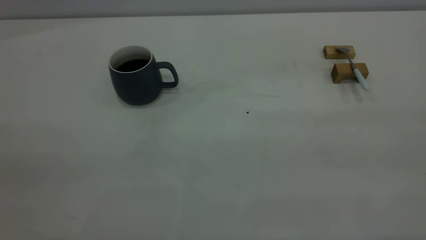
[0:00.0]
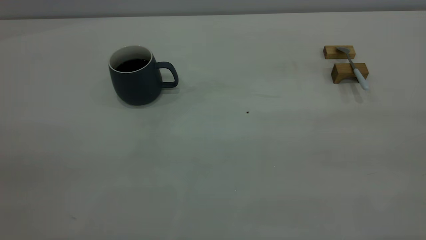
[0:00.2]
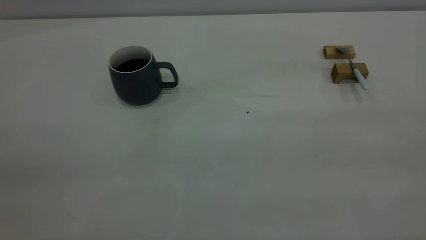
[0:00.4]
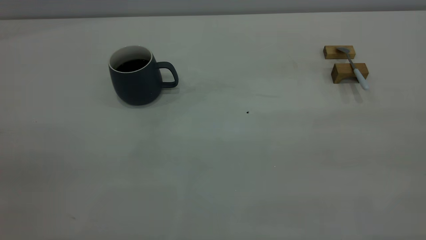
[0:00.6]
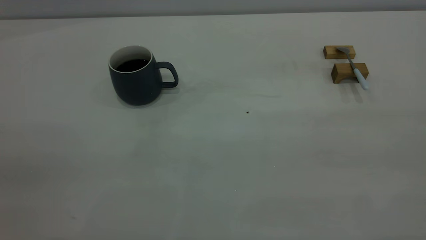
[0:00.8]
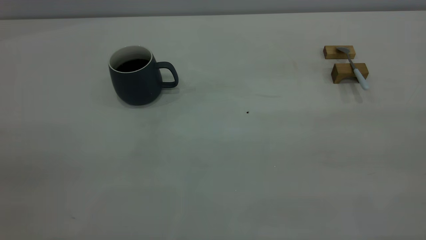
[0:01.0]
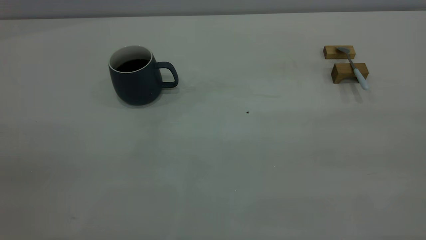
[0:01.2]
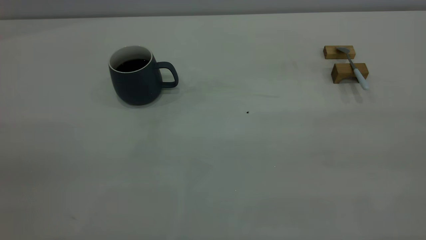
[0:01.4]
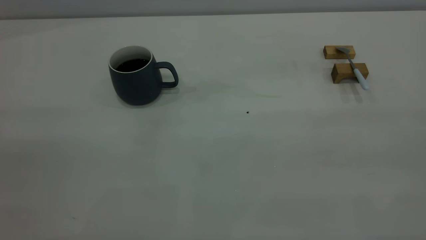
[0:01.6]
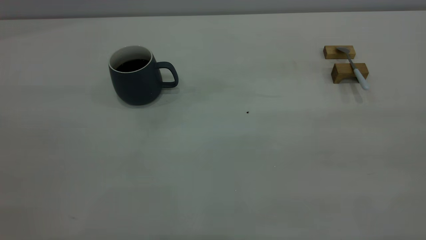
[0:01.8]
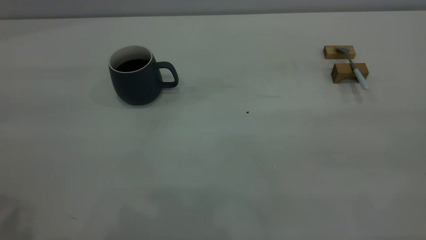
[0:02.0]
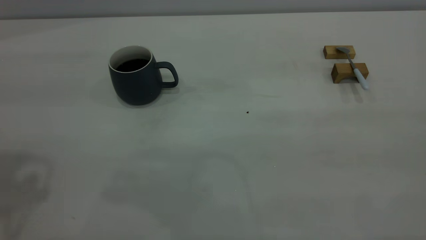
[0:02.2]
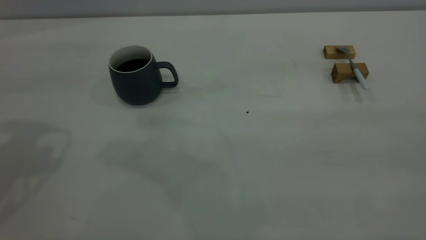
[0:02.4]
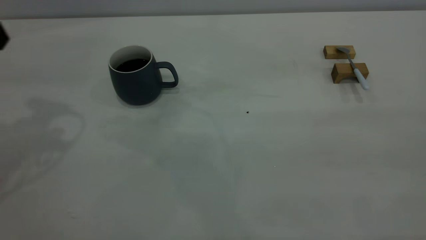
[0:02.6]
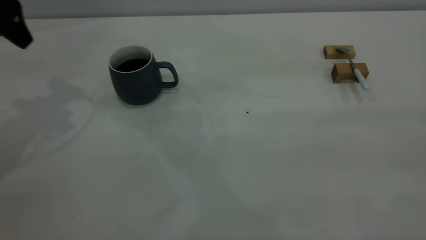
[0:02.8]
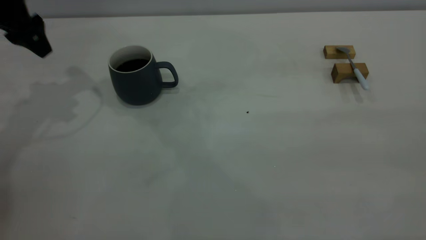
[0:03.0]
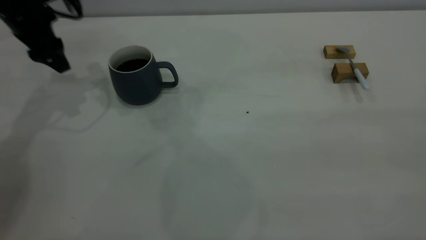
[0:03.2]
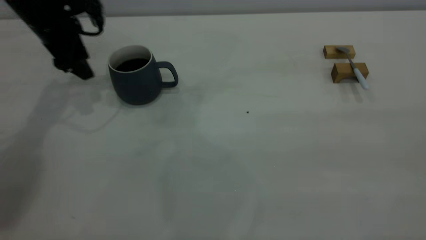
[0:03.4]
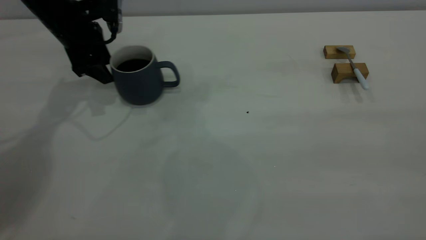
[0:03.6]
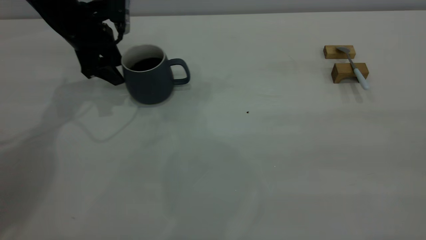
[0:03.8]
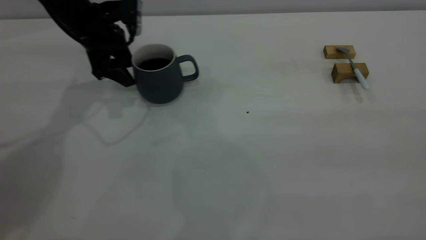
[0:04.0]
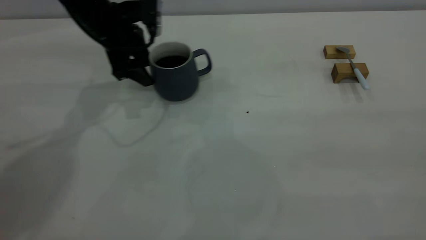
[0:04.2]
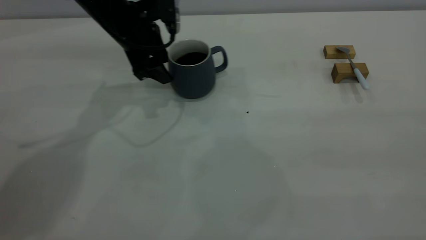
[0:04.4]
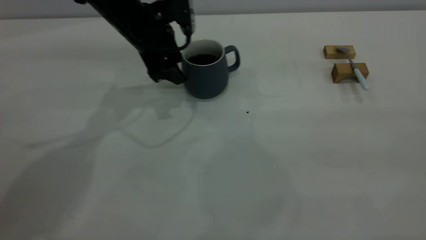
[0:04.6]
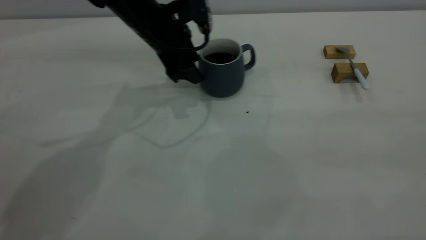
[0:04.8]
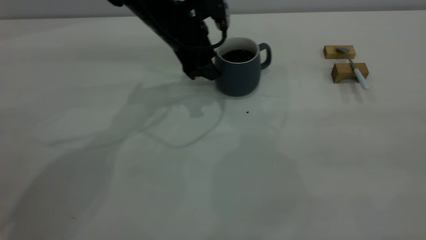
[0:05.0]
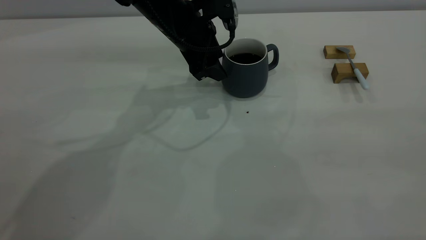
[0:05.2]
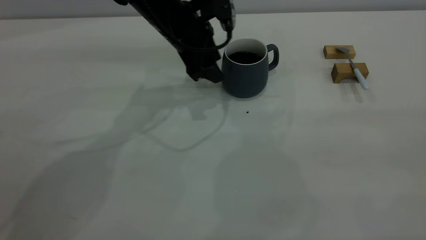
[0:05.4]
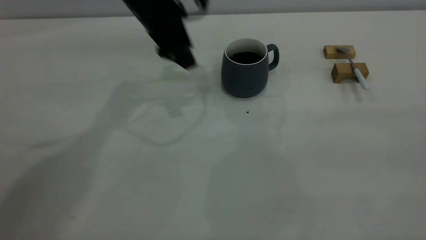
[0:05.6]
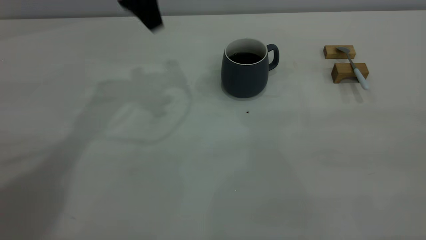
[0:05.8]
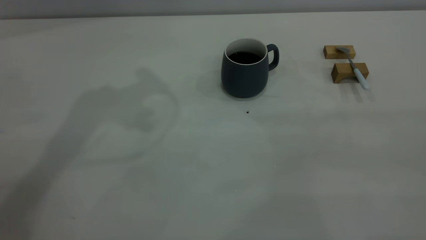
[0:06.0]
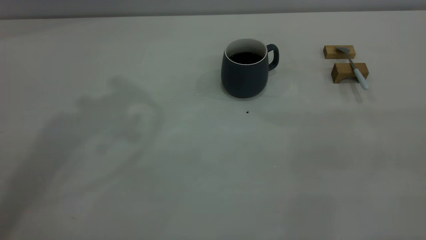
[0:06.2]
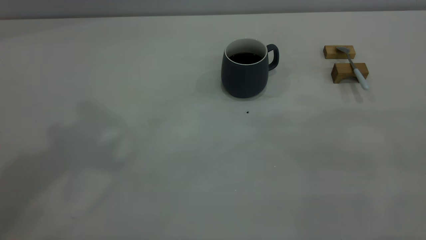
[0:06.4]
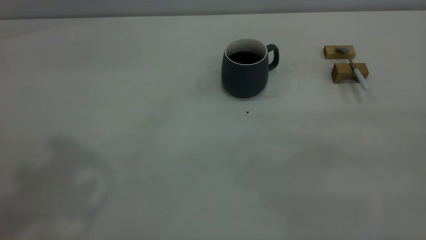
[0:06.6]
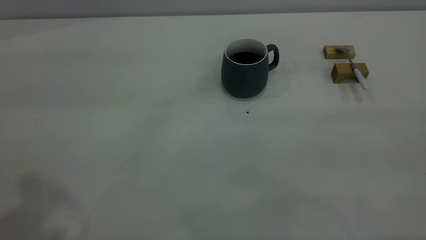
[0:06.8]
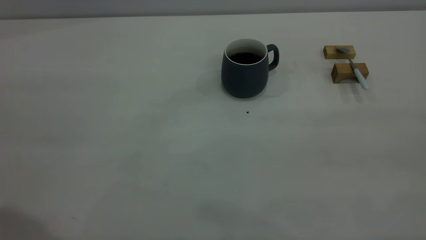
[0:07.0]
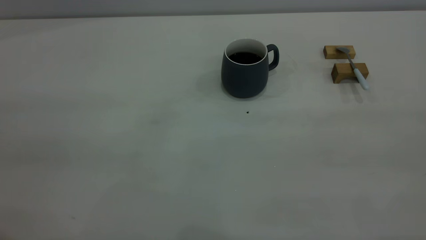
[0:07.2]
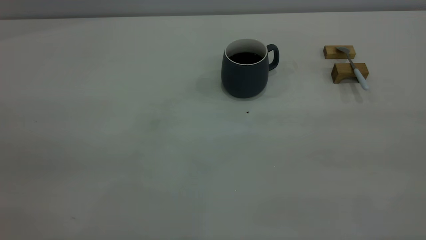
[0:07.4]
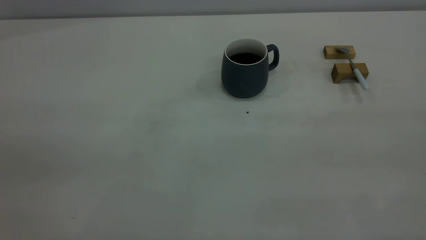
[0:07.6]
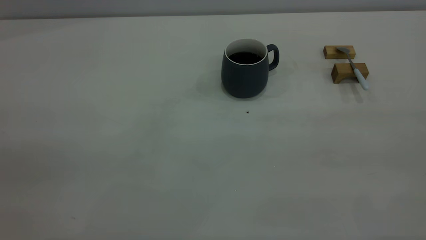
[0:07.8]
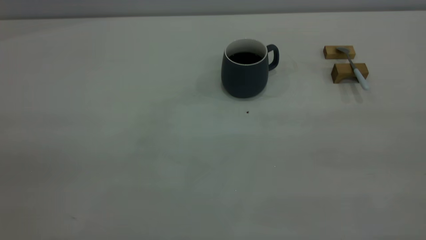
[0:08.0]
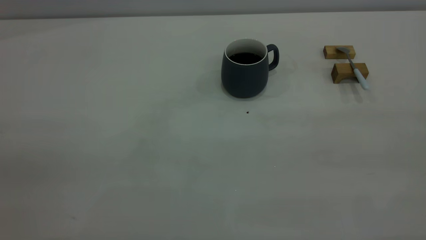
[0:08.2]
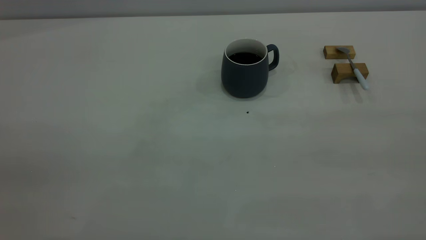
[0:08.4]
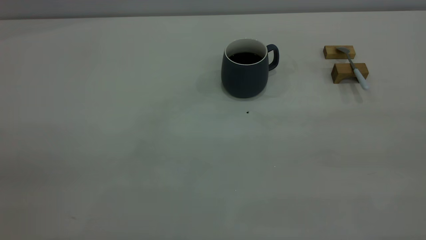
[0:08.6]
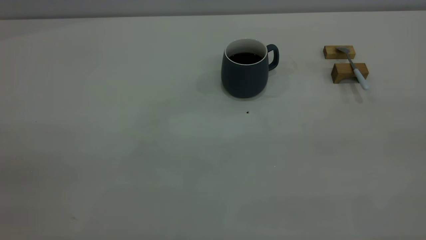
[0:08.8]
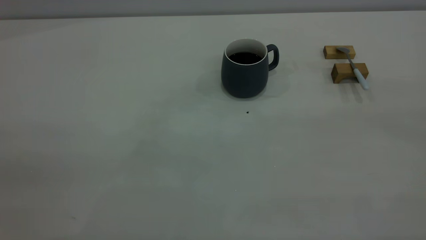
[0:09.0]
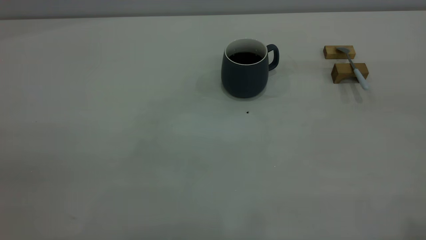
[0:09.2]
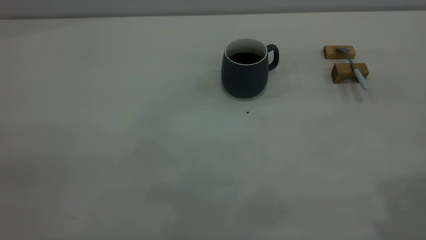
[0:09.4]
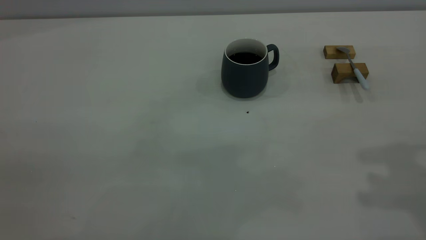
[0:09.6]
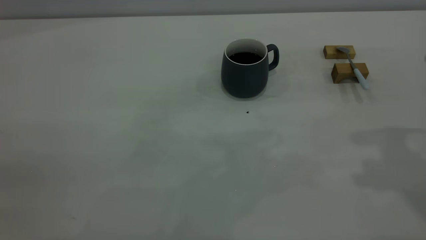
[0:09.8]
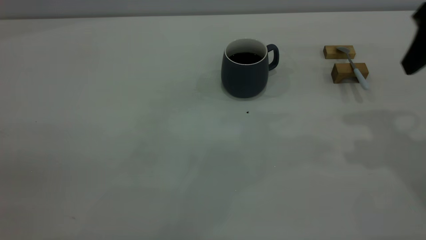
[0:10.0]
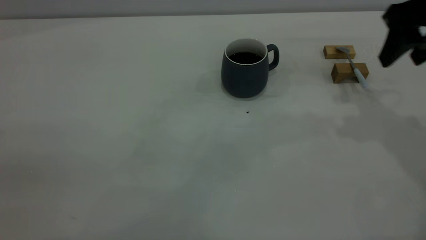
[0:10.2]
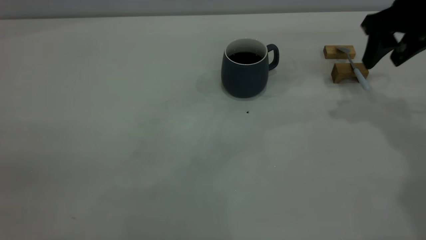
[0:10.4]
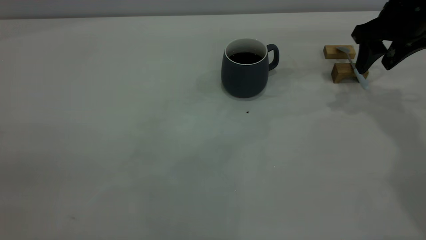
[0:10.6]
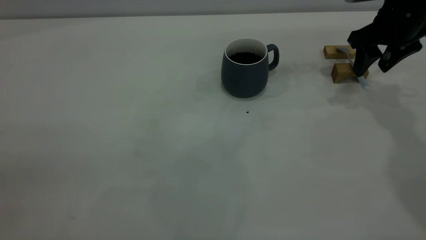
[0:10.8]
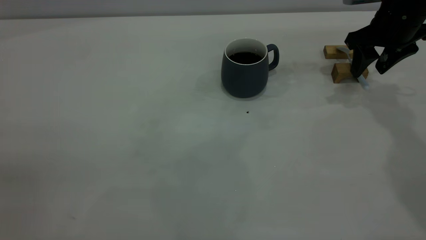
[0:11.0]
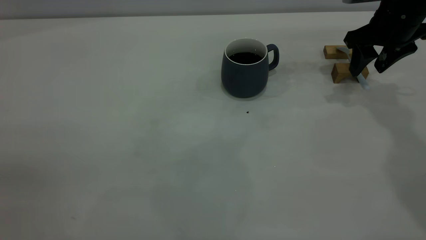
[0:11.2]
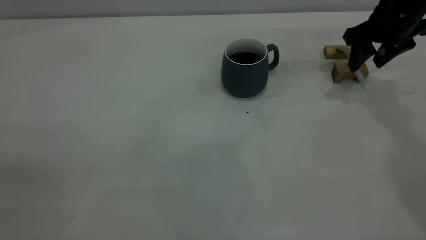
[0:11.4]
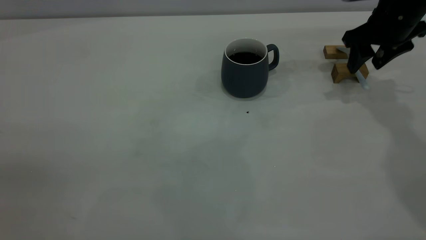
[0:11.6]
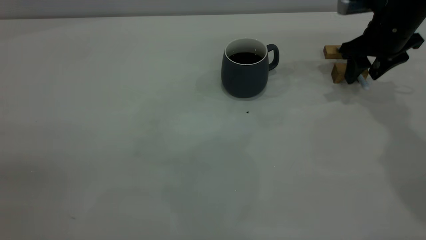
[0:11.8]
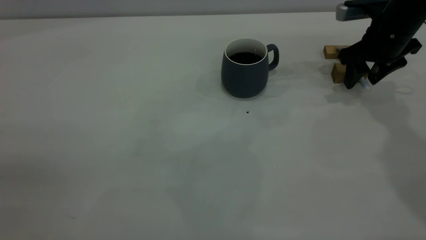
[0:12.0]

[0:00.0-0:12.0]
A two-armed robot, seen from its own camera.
Step, 0:00.0 to 0:05.4: Move the cup with coffee to the center of view.
0:01.6 to 0:03.0: The left gripper moves forward and downward, roughly 40 cm.
0:03.0 to 0:04.4: The left gripper travels to the right and downward by roughly 20 cm.
0:04.4 to 0:06.0: The left gripper shifts about 25 cm upward.
0:09.0 to 0:10.4: The right gripper heads forward and downward, covering roughly 40 cm.
0:10.4 to 0:12.0: The right gripper travels downward by some 10 cm.

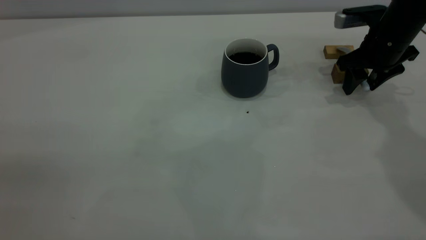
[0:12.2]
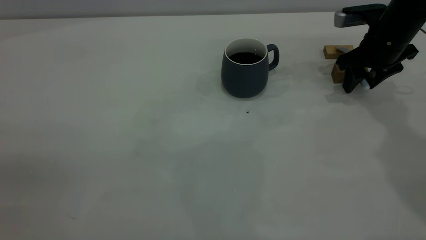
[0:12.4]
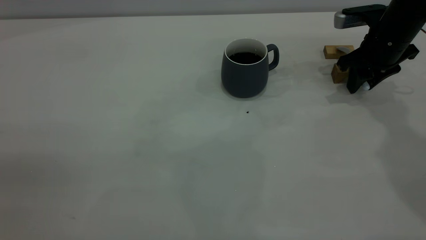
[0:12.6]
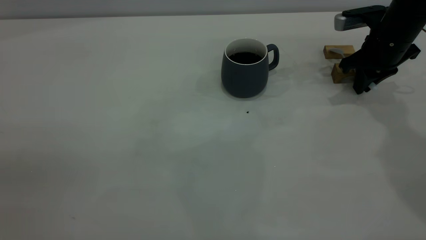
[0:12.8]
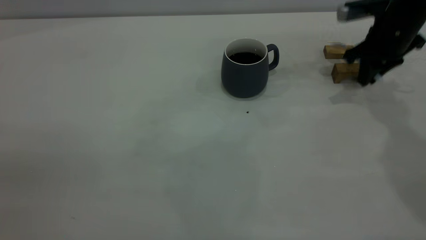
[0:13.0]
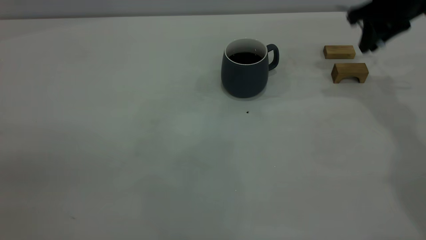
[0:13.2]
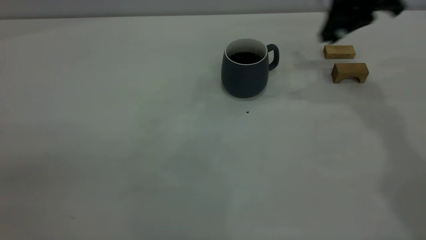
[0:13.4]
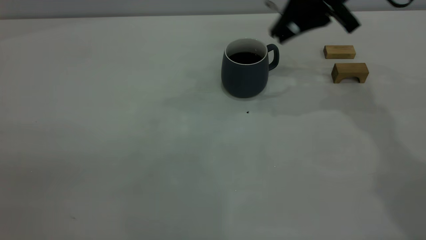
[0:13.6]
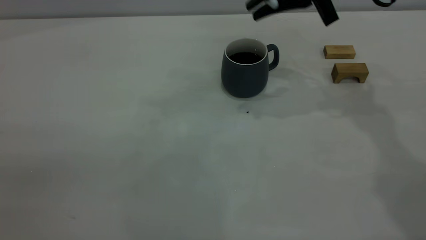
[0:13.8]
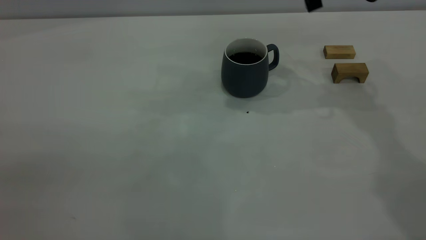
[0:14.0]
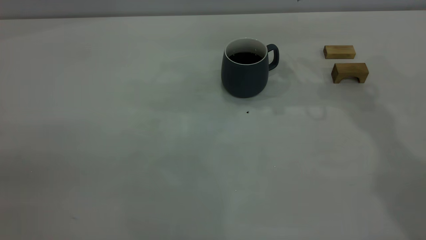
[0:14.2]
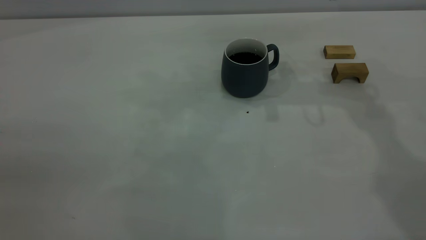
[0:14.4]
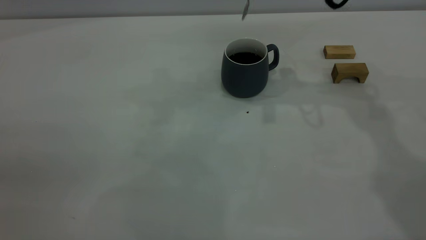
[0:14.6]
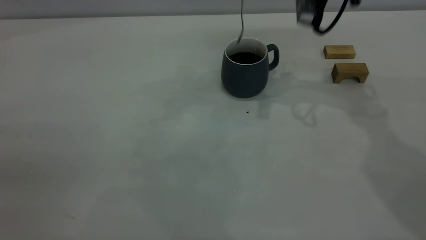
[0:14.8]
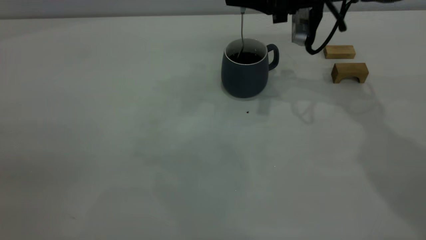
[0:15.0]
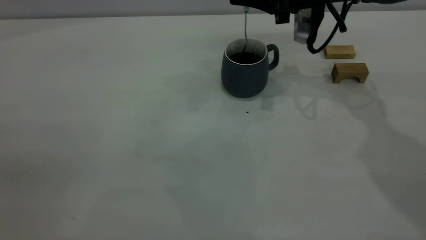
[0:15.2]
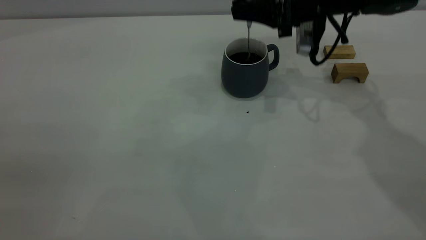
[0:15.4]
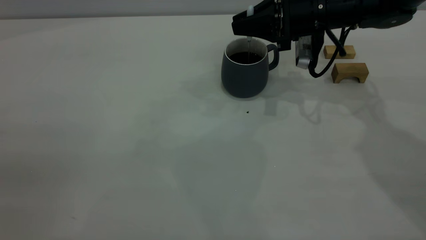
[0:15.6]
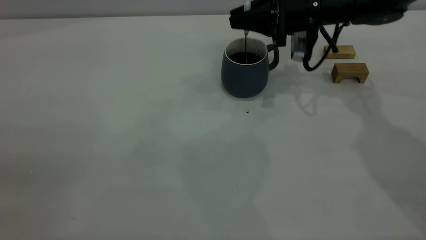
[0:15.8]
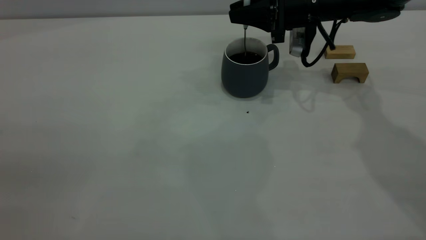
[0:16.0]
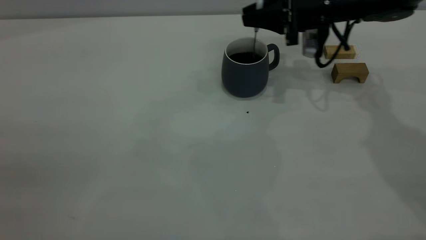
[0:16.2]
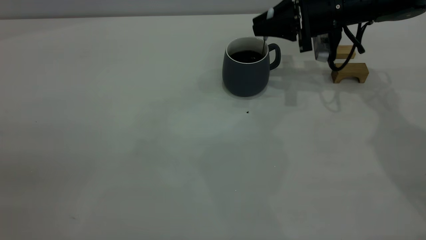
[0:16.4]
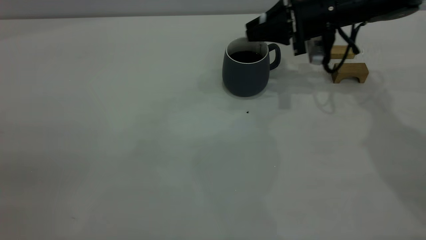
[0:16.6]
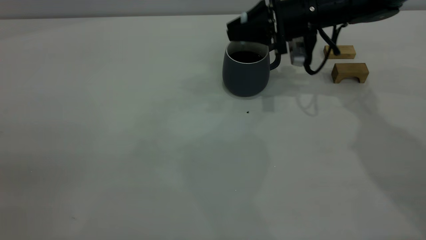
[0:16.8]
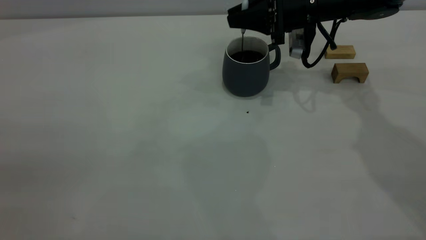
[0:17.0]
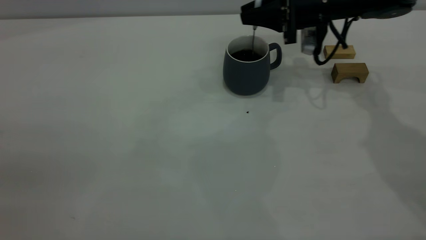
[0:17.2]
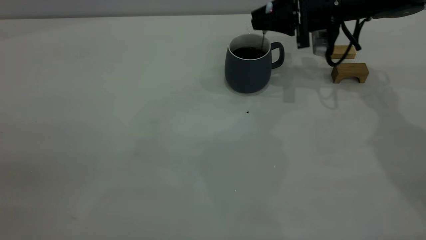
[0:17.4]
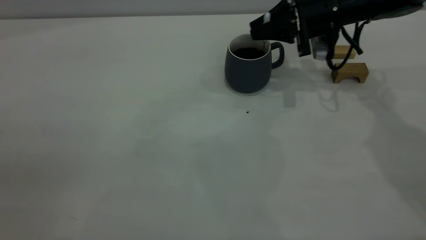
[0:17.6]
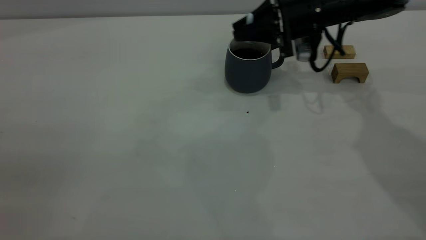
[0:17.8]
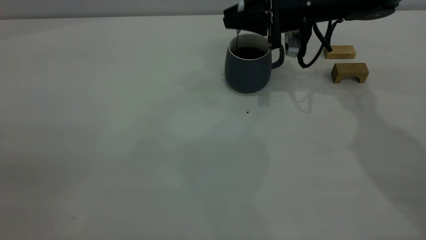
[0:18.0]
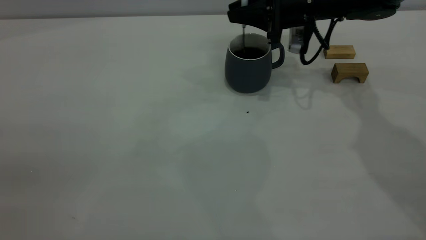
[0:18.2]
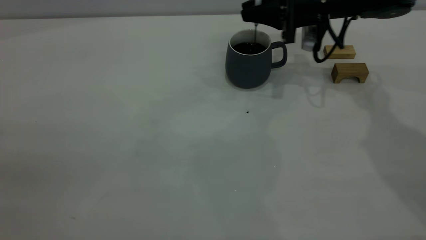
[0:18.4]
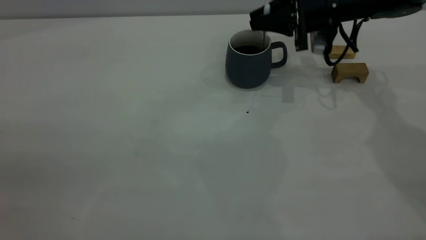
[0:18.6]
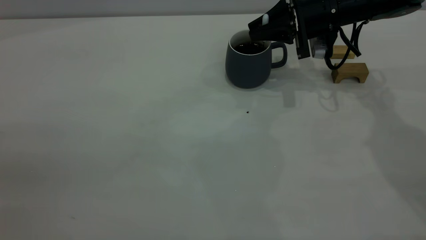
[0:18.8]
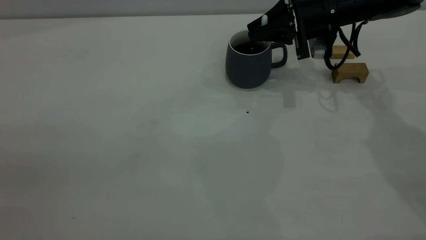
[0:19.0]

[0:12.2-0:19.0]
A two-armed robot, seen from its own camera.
0:12.2 to 0:13.6: The right gripper is displaced upward and to the left by approximately 15 cm, and closes its fingers.
0:13.6 to 0:15.0: The right gripper shifts approximately 5 cm downward.
0:15.0 to 0:16.2: The right gripper heads downward, covering roughly 5 cm.
0:16.2 to 0:19.0: The grippers stay close to where they were, moving slightly.
